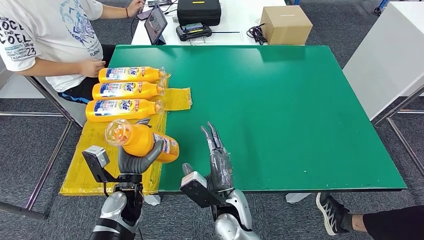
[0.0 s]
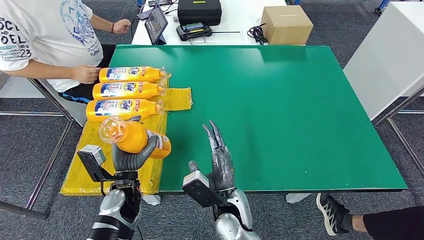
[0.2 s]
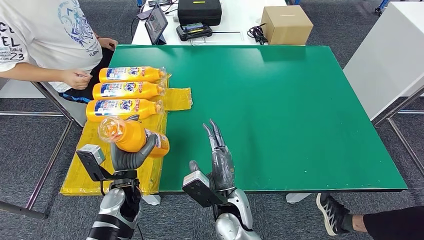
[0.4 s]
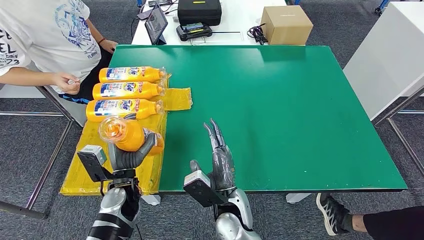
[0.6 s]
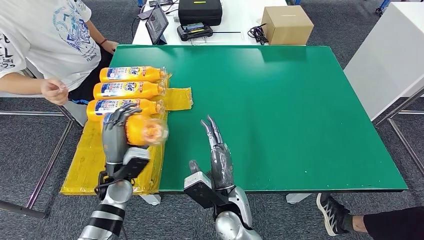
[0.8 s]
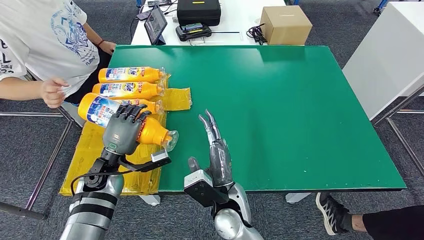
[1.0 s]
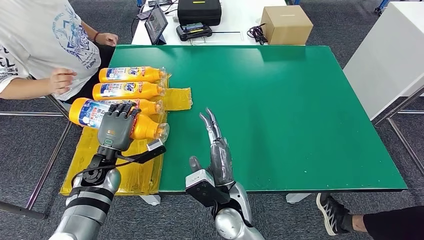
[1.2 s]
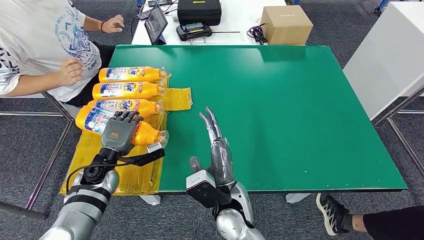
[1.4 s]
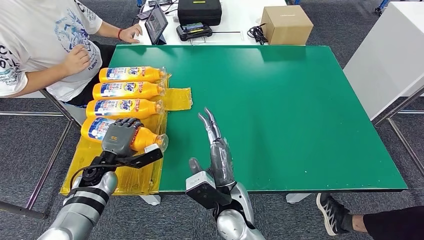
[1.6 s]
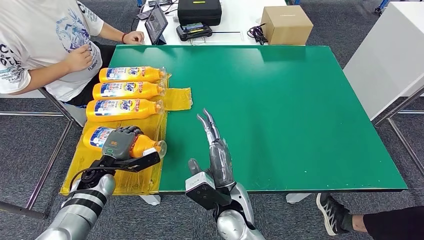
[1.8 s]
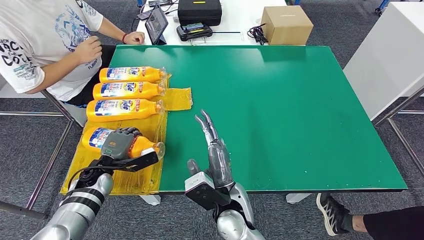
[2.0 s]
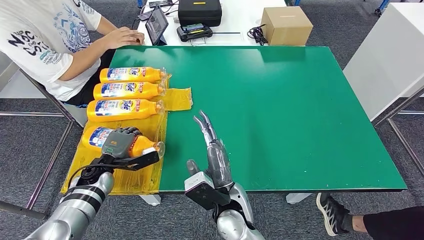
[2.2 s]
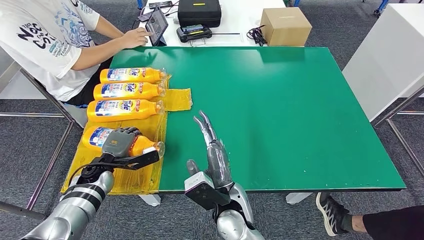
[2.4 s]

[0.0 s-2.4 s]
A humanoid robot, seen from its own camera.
Step, 0.0 to 2.4 s: Flip the fast-moving consumer goods bottle to the front side.
0.0 to 1.2 s: The left hand goes approximately 10 cm to the left and forward.
